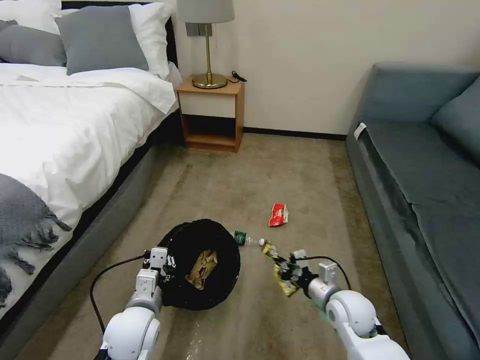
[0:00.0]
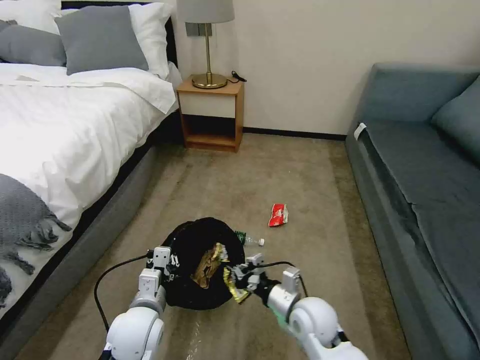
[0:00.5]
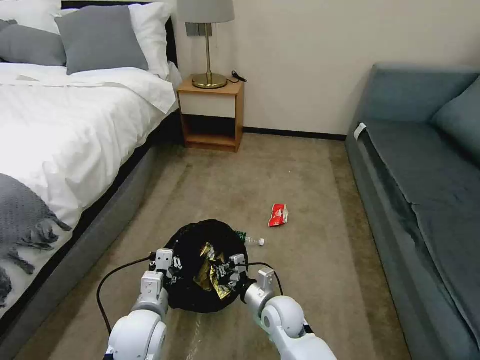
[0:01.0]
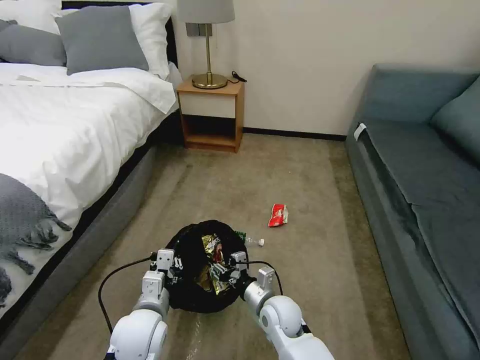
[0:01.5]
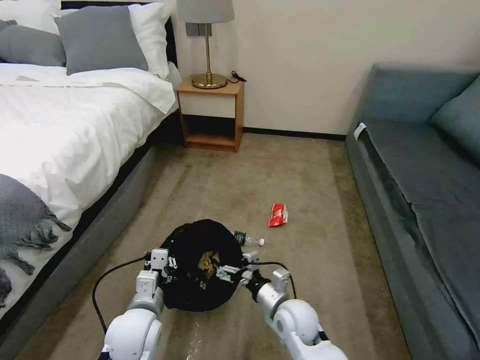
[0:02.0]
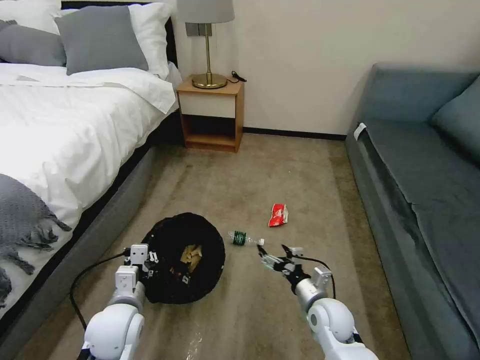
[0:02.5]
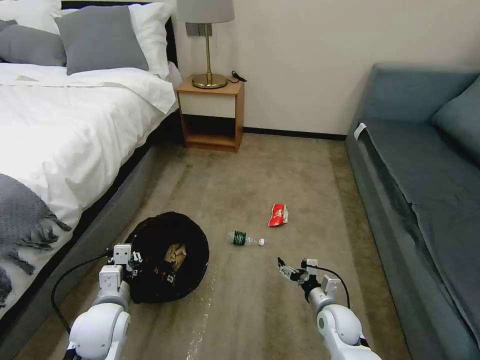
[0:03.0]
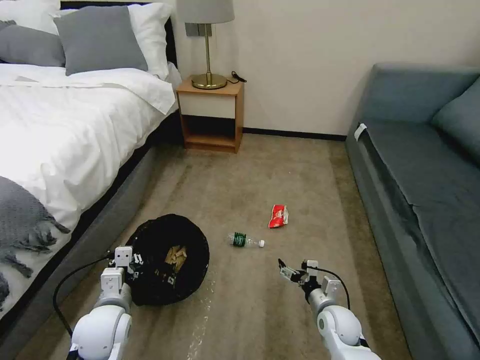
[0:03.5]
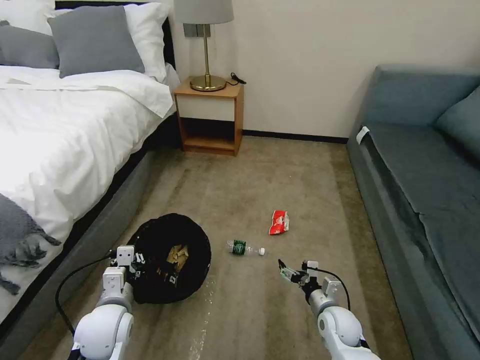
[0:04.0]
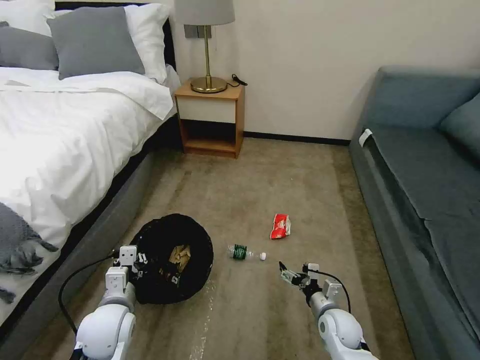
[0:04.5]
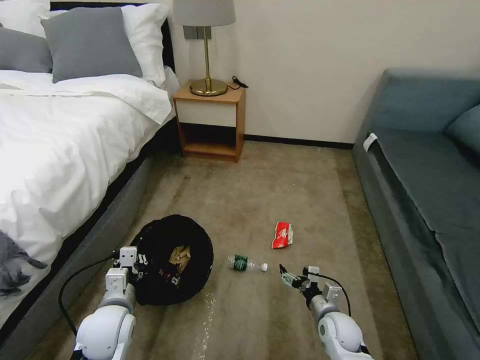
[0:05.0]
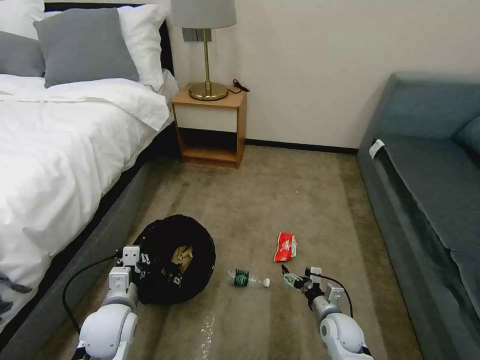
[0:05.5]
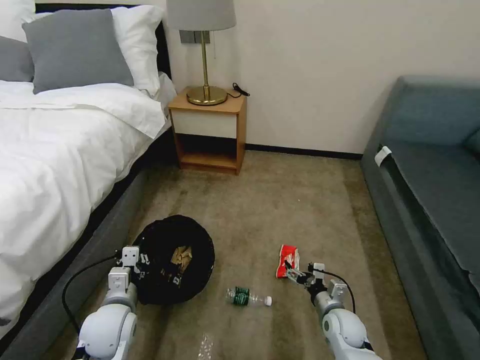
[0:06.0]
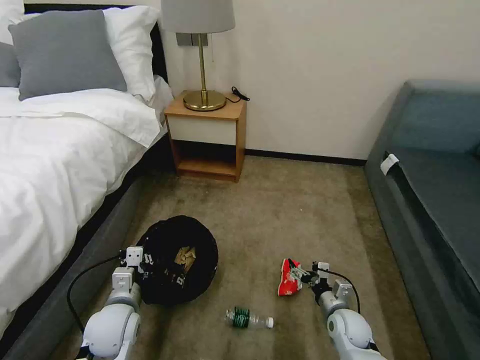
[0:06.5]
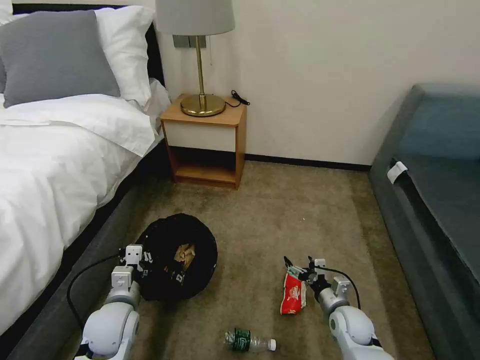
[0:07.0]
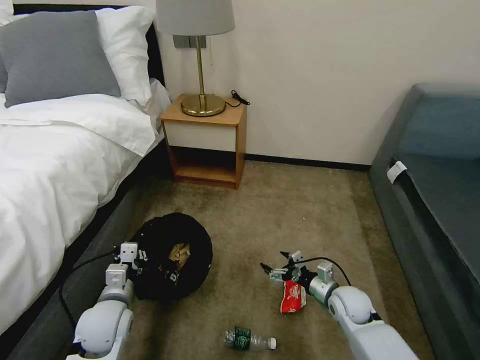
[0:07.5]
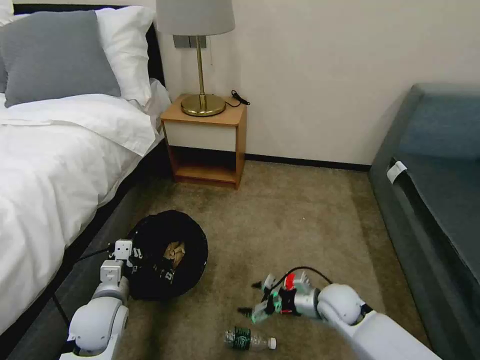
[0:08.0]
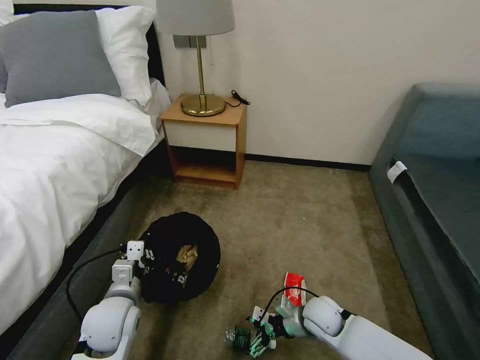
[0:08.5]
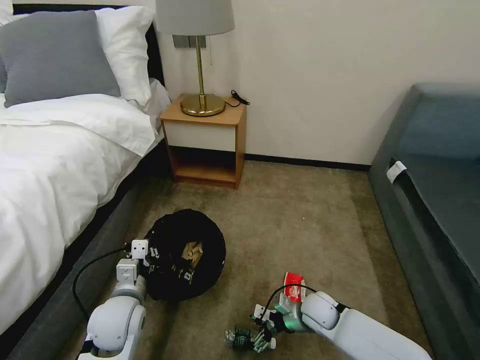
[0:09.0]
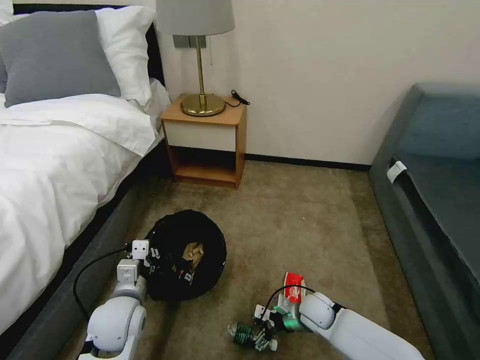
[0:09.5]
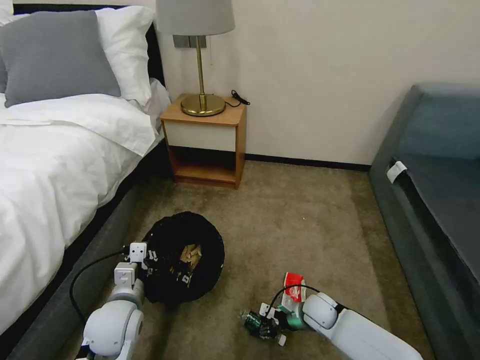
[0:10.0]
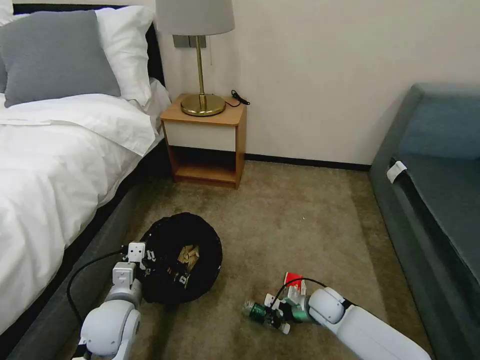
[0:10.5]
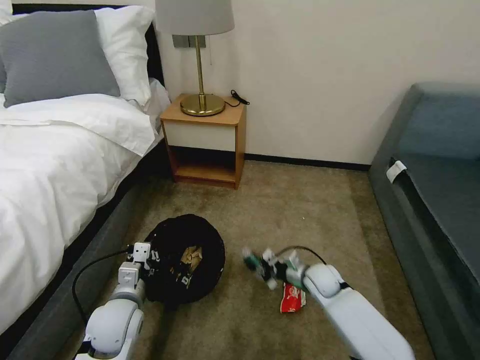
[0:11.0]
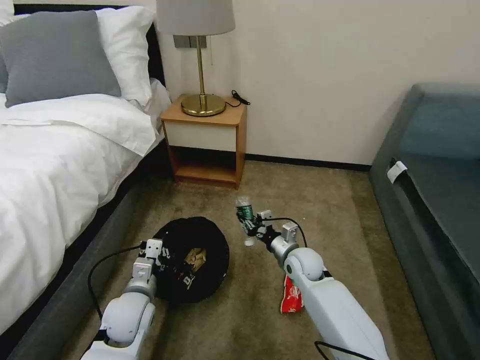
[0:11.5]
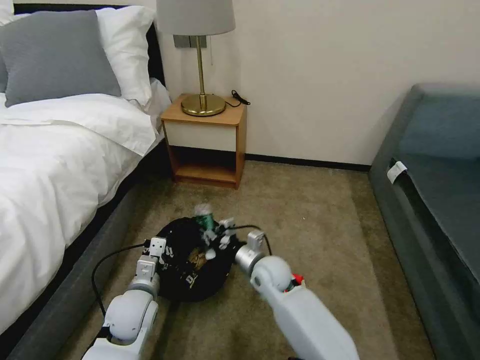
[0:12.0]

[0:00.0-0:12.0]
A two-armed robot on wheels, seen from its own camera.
Task of the whole recording: Pick up the trash bin, then pick up the garbage on the floor and place it into the trash bin.
0:00.0 to 0:02.0: The right gripper heads to the left, covering about 15 cm, and opens up.
0:02.0 to 0:04.0: The right gripper shifts approximately 15 cm to the right and downward, while the left gripper heads to the left, covering approximately 5 cm.
0:06.0 to 0:08.0: The right gripper goes approximately 10 cm upward.
0:08.0 to 0:10.0: The right gripper shifts approximately 10 cm downward, and closes its fingers.
0:10.0 to 0:12.0: The right gripper moves to the left and upward, approximately 20 cm.

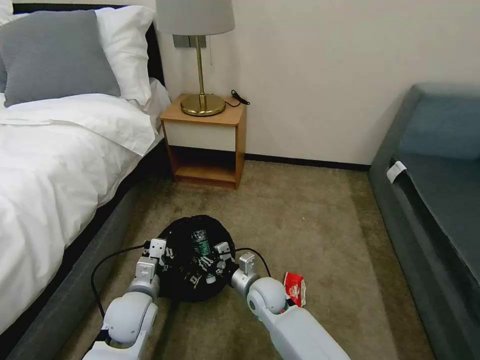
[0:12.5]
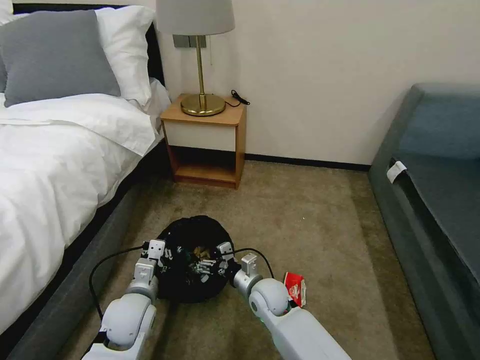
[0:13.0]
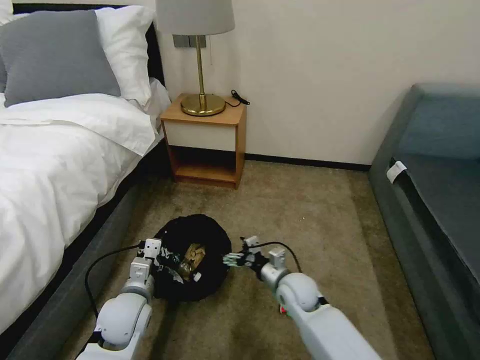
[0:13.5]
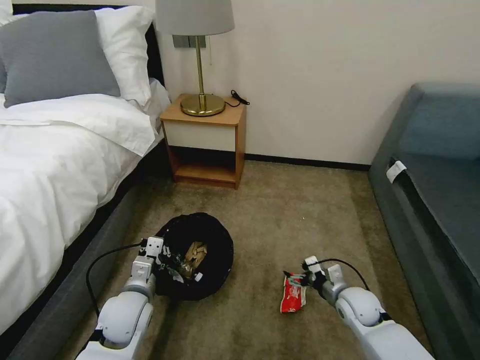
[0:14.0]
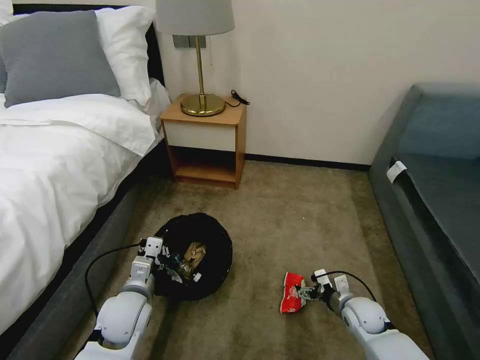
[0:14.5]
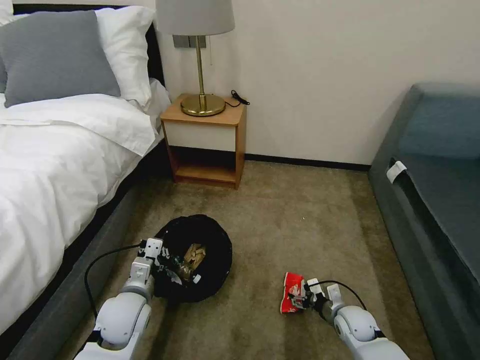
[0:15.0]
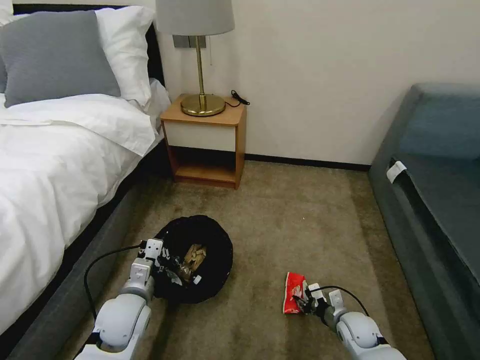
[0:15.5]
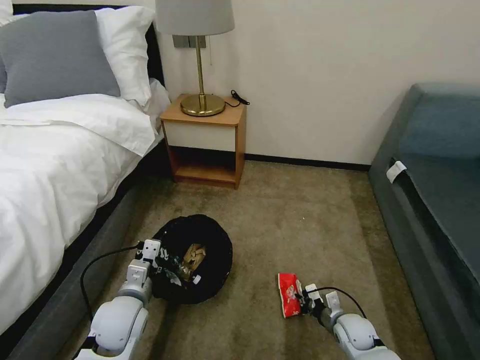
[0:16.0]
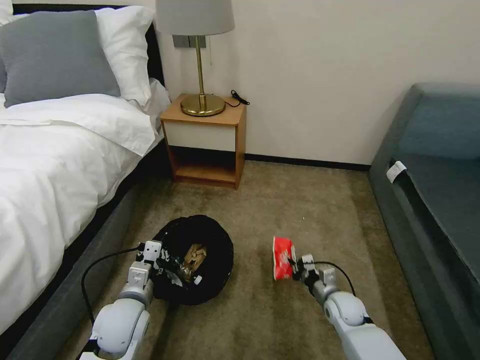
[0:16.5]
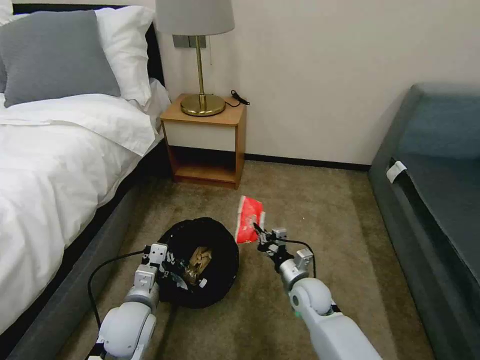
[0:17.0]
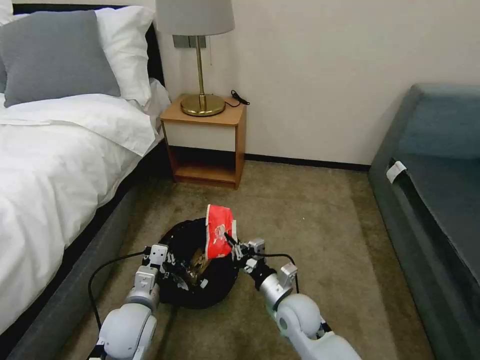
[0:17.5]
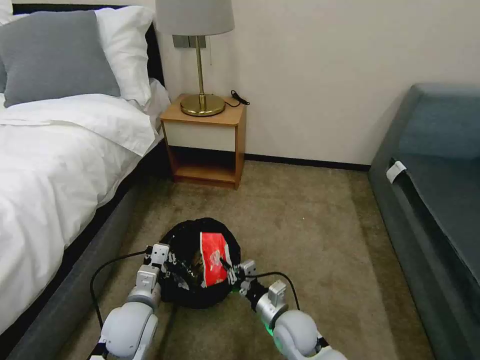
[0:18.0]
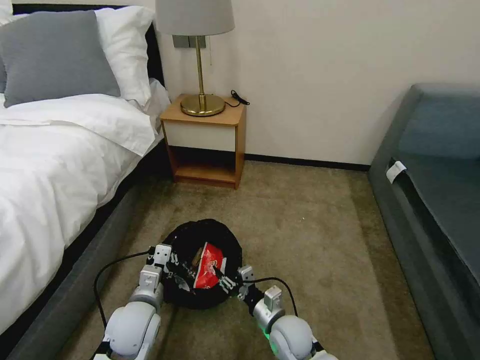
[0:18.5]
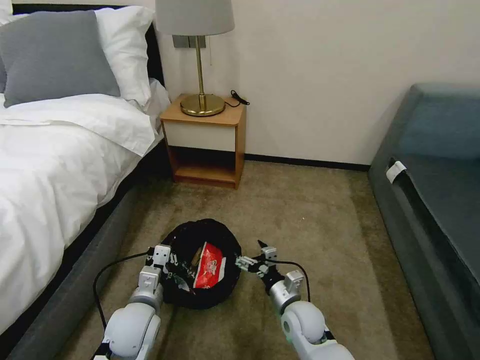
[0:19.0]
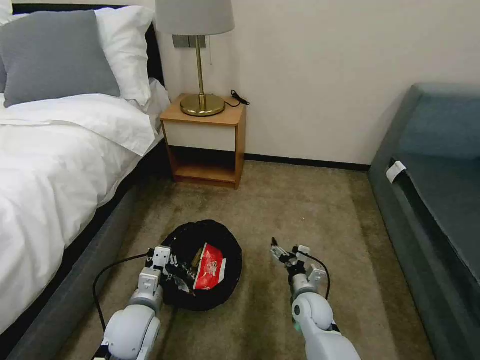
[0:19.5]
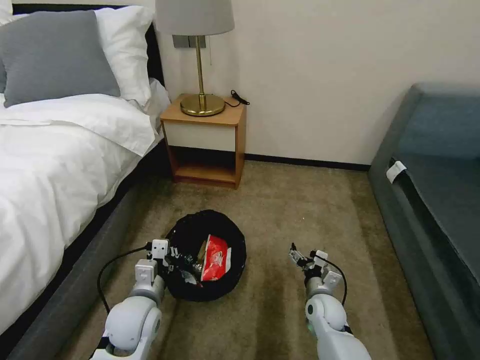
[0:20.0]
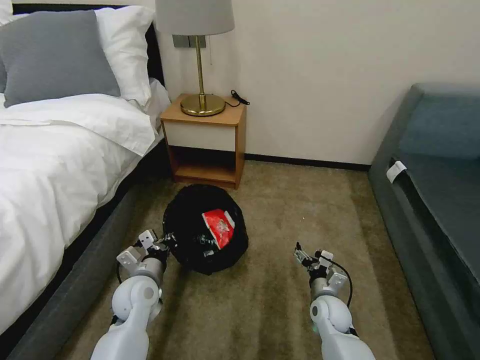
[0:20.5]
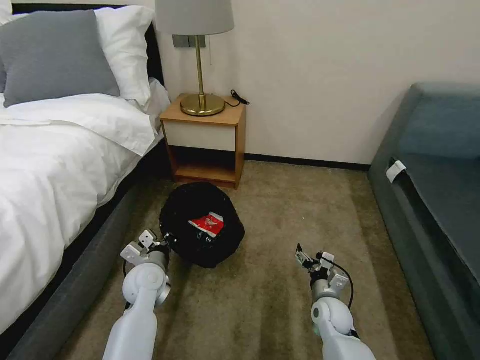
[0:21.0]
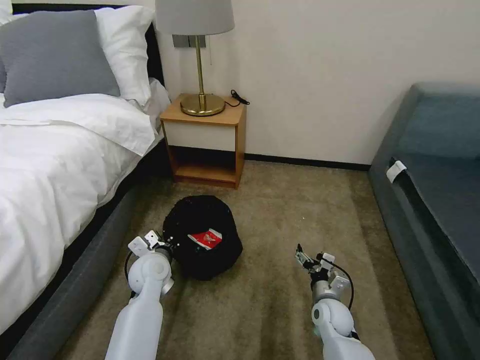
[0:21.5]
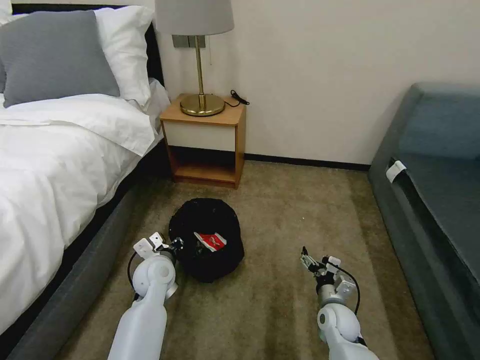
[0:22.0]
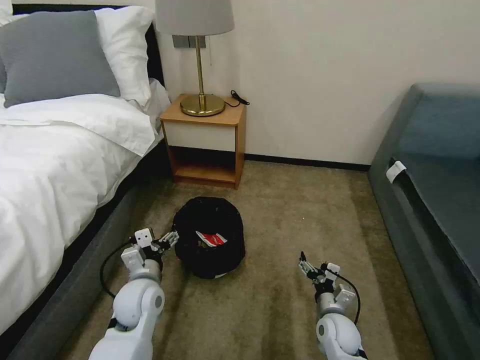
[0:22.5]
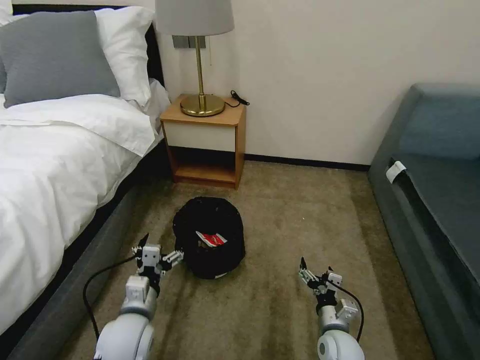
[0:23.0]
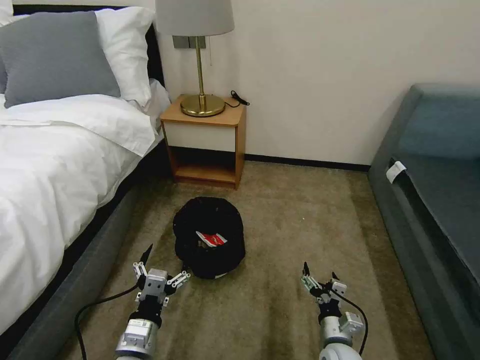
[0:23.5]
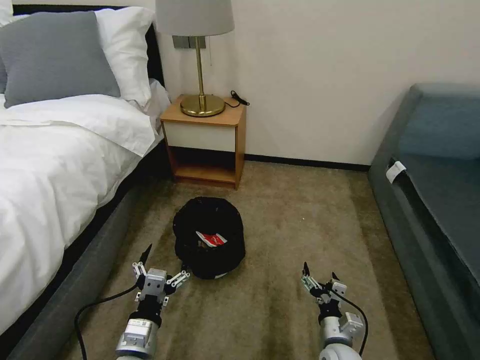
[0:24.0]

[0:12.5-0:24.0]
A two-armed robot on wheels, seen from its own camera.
Task of the whole recording: Pick up the trash bin, then pick up the garbage on the floor and place it into the trash bin.
0:12.5 to 0:14.5: The right gripper travels to the right by approximately 25 cm, and opens up.
0:14.5 to 0:16.5: The right gripper closes its fingers.
0:16.5 to 0:18.5: The right gripper goes approximately 15 cm to the left, and opens up.
0:18.5 to 0:20.0: The right gripper moves to the right and forward, about 15 cm, and opens up.
0:20.0 to 0:22.0: The left gripper shifts about 10 cm forward, and opens.
0:22.0 to 0:24.0: The left gripper is displaced backward by roughly 20 cm, and opens; the right gripper travels backward by some 10 cm.

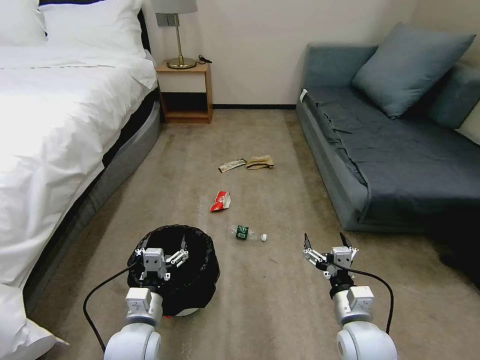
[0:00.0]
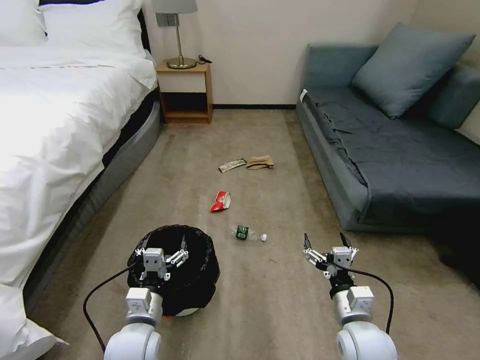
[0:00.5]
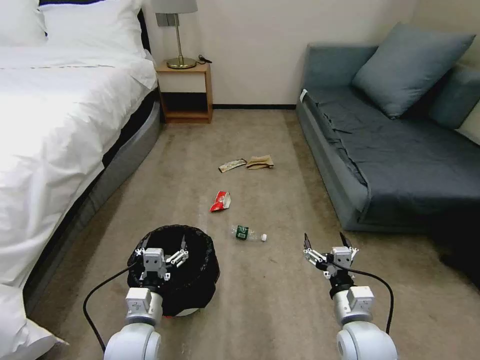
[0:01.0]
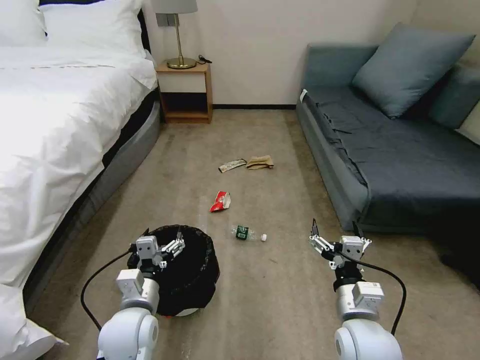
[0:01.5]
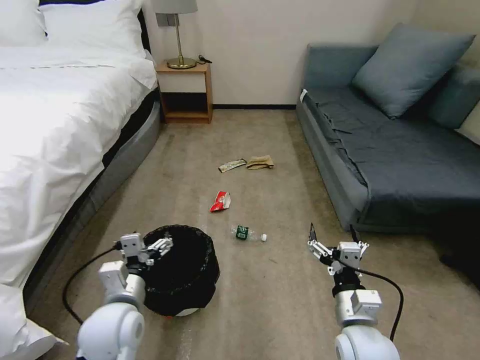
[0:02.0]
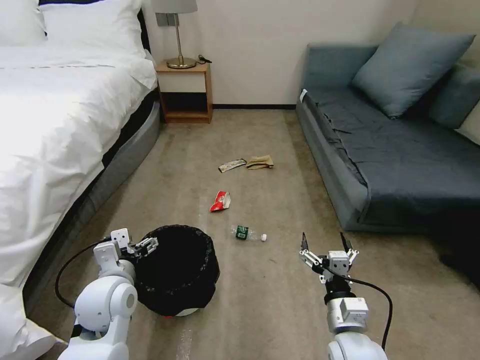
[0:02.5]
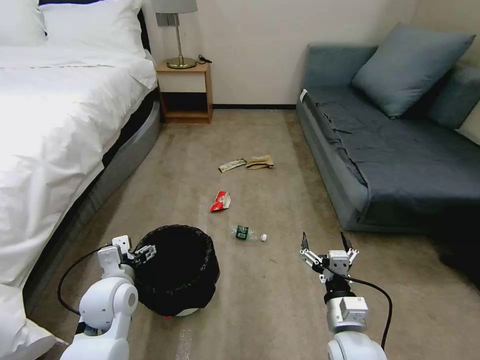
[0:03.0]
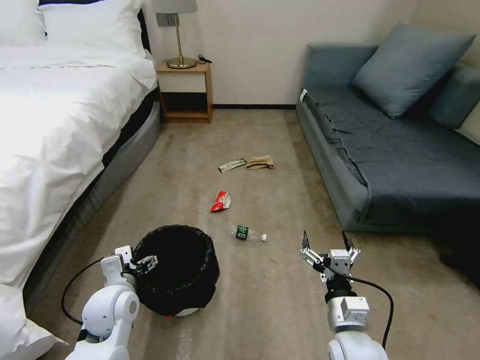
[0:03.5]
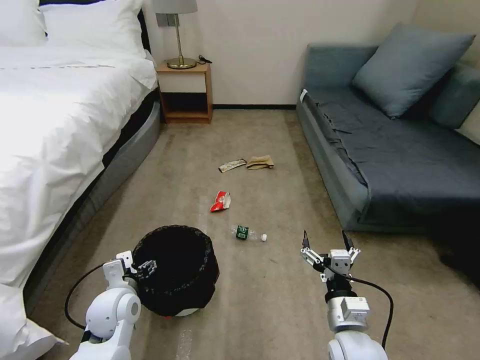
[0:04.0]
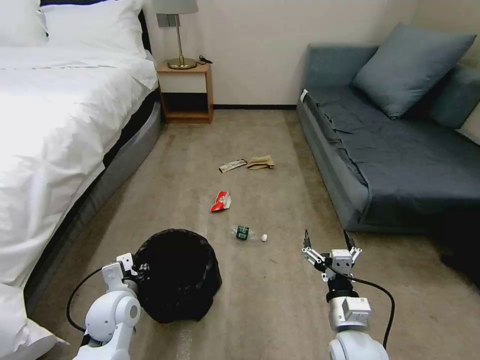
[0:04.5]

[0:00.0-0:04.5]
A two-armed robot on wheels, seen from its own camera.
Task of the whole recording: Pick up the trash bin, then pick up the garbage on the floor and place it into the trash bin.
0:02.0 to 0:04.5: The left gripper is displaced downward by roughly 5 cm, and closes its fingers.
